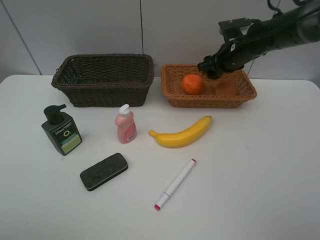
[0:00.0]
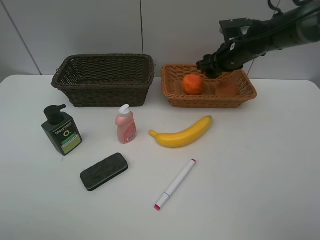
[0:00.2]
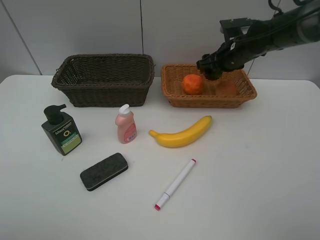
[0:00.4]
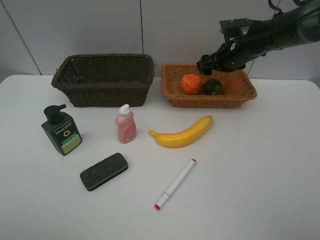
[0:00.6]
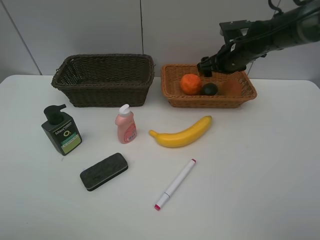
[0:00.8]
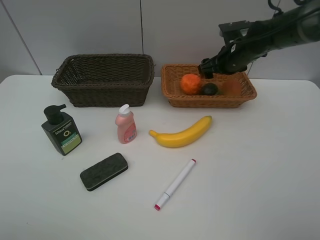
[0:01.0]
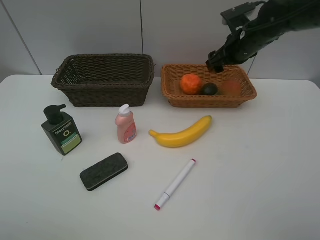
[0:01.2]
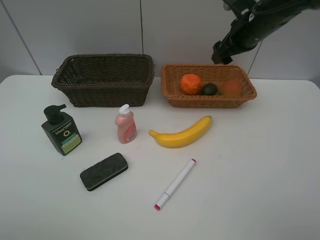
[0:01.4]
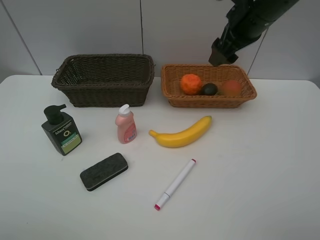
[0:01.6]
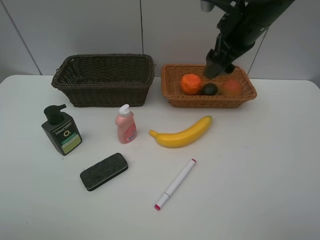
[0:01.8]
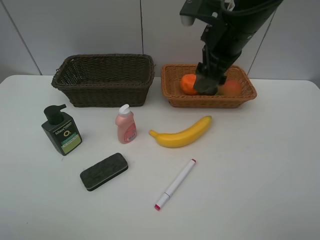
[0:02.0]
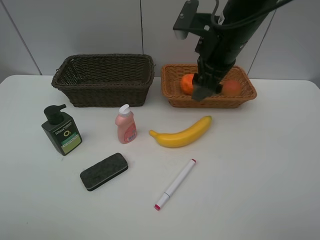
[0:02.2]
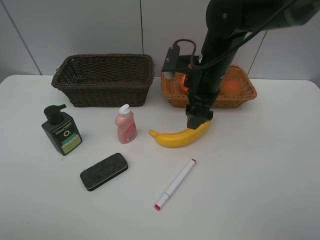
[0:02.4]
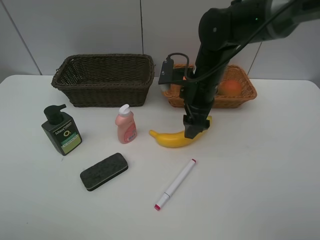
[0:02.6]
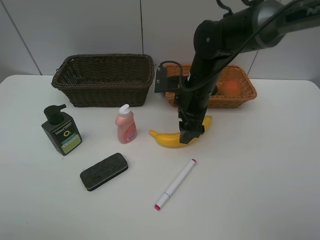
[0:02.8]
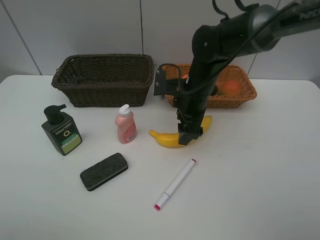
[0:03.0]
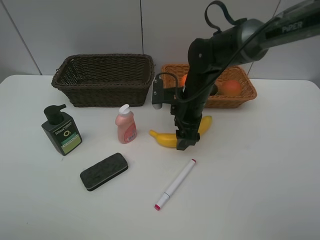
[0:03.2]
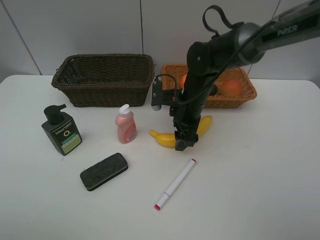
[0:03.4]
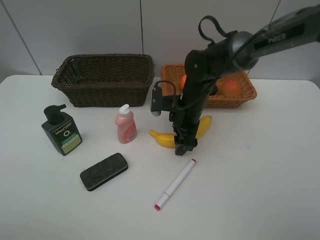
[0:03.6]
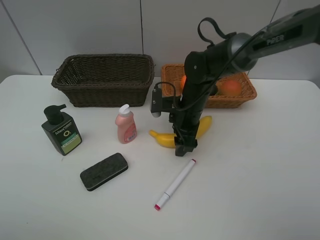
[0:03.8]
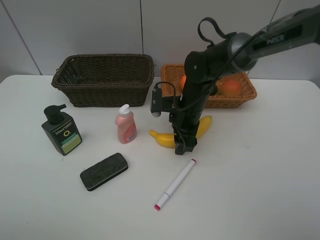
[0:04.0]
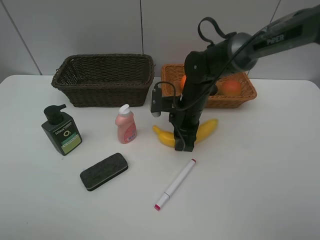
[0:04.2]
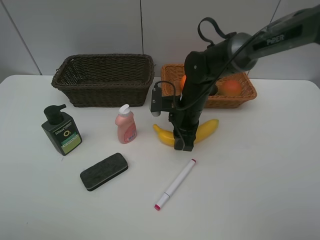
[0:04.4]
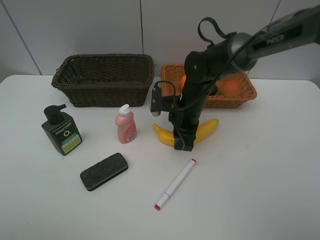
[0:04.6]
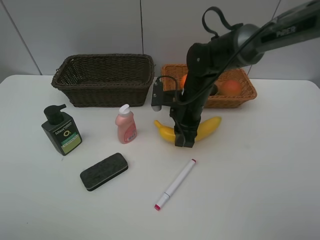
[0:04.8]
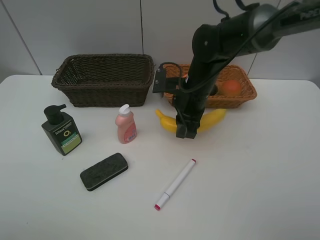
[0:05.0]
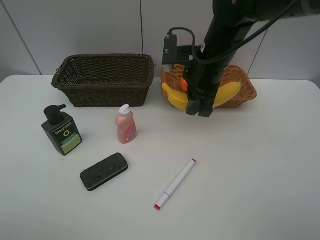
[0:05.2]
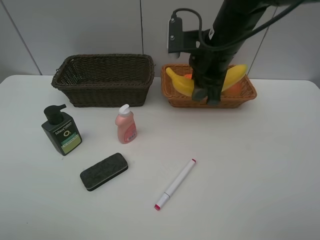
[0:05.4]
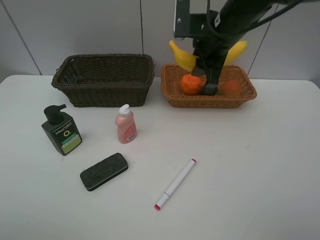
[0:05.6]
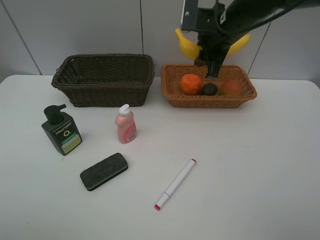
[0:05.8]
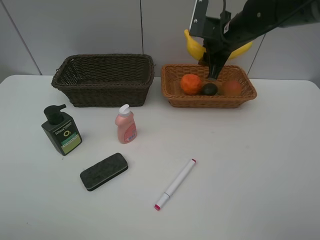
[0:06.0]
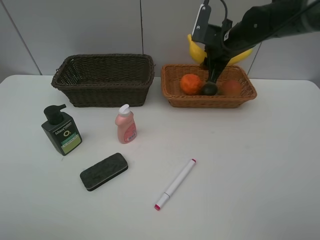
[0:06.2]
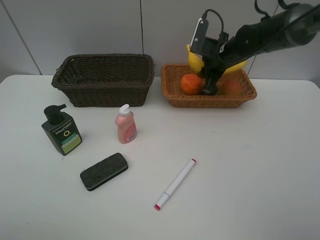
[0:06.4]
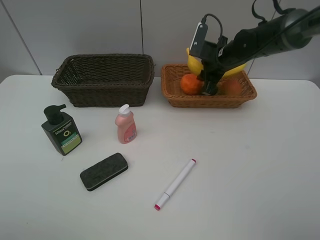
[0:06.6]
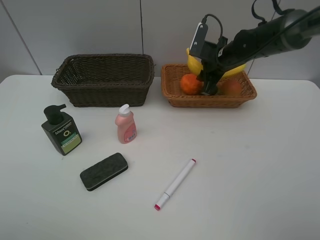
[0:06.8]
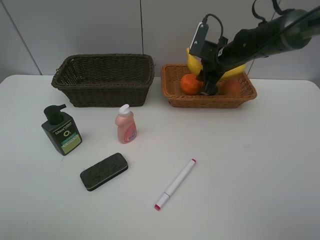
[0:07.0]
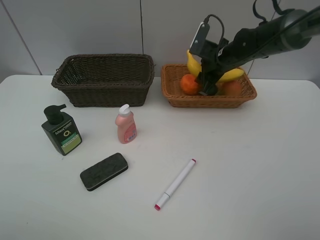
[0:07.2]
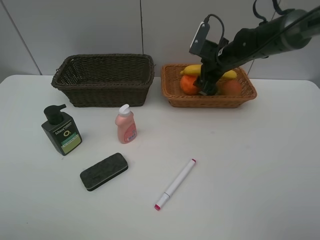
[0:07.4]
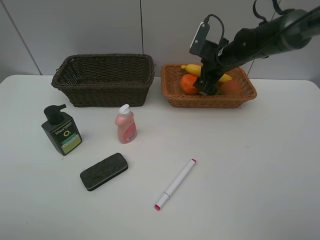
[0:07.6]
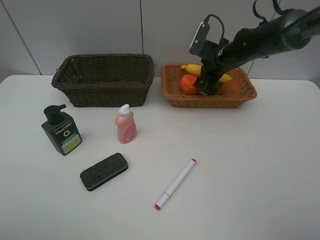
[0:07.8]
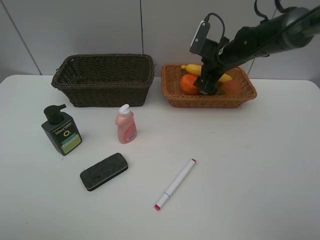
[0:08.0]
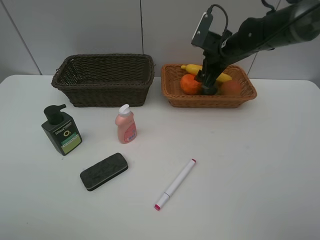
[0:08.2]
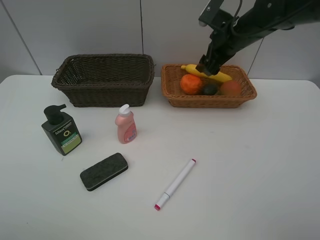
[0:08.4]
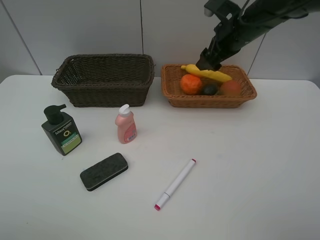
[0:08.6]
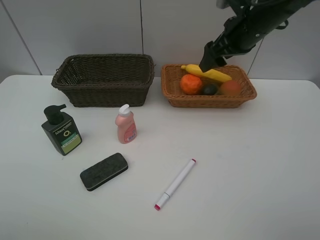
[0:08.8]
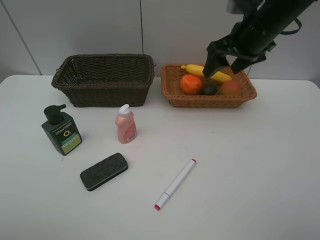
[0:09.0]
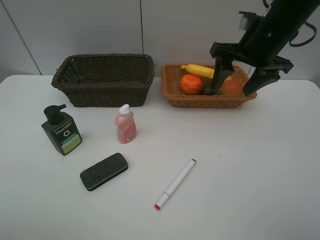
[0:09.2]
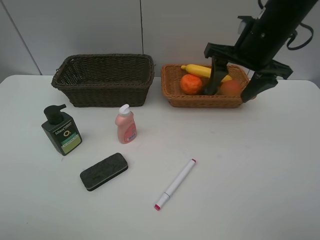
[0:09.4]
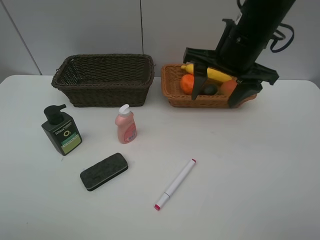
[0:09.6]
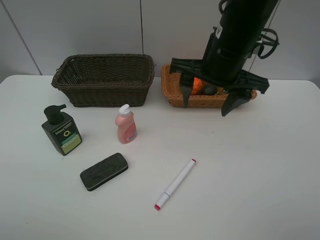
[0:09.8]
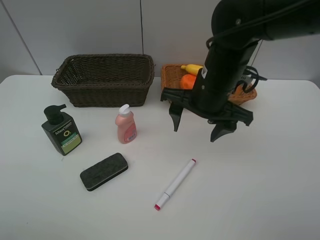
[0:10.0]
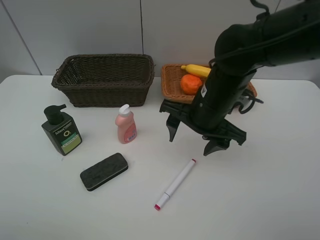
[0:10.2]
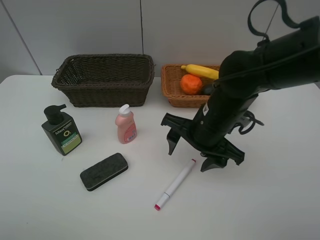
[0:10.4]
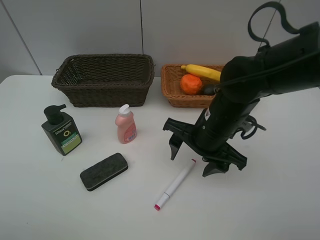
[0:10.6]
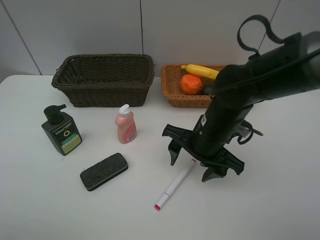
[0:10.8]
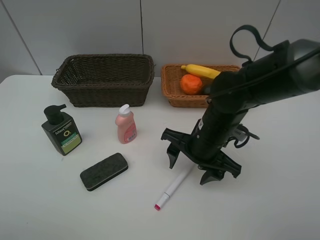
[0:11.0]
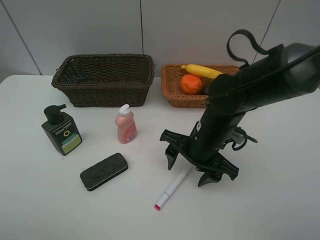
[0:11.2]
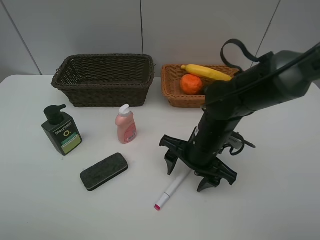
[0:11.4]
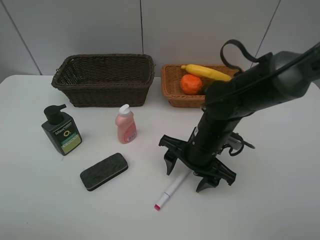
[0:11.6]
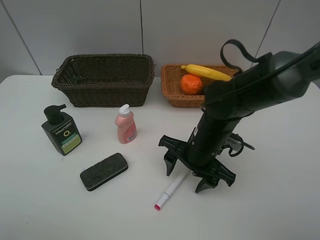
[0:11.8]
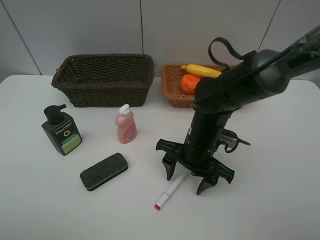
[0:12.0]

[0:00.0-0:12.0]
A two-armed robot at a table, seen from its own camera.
Task of the whole recording: Place multiple objects separately in different baskets.
Step, 0:01.2 to 0:04.8: Pick up banana with right gripper.
Step, 0:05.0 to 0:08.0: Place the banana in the light basket with right gripper.
0:00.0 to 0:01.6: The right gripper goes some 15 cm upward and backward.
0:01.6 to 0:03.0: The right gripper goes approximately 15 cm downward and to the left.
0:03.0 to 0:04.4: The right gripper closes.
0:04.4 to 0:06.0: The right gripper is displaced upward, to the right and forward by approximately 15 cm.
0:06.0 to 0:07.6: The right gripper shifts some 5 cm downward, and opens up.
0:07.6 to 0:09.0: The right gripper heads upward and backward, covering roughly 15 cm.
0:09.0 to 0:10.4: The right gripper heads downward, backward and to the left, covering some 20 cm.
0:10.4 to 0:12.0: The right gripper goes about 5 cm downward.

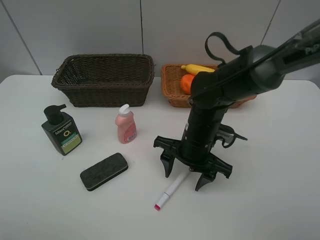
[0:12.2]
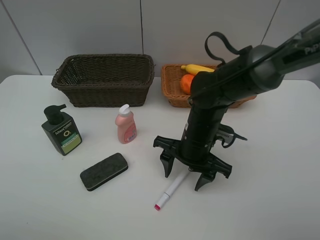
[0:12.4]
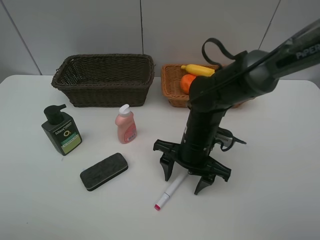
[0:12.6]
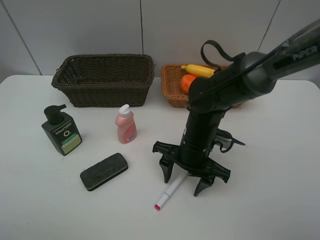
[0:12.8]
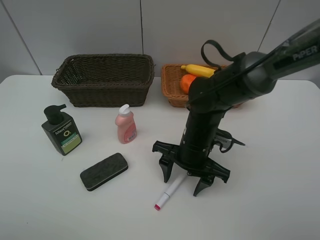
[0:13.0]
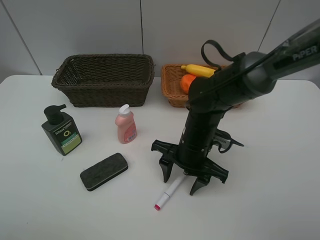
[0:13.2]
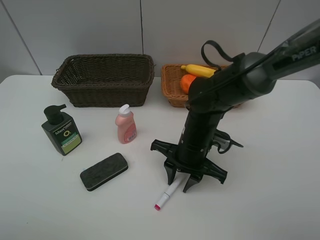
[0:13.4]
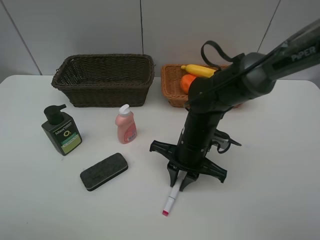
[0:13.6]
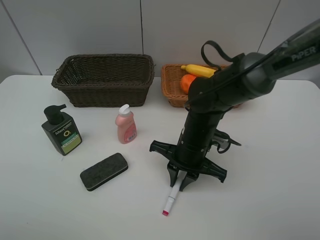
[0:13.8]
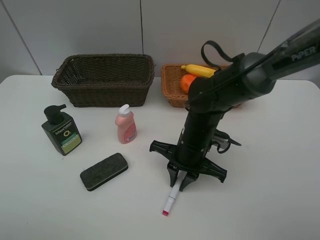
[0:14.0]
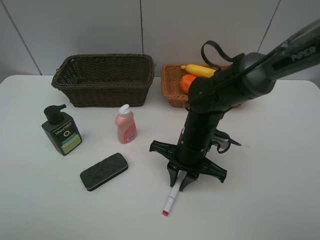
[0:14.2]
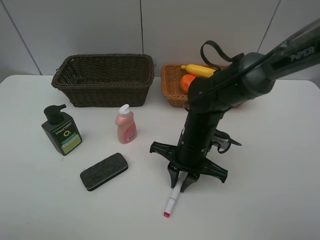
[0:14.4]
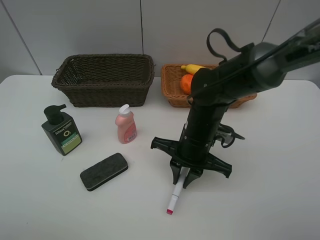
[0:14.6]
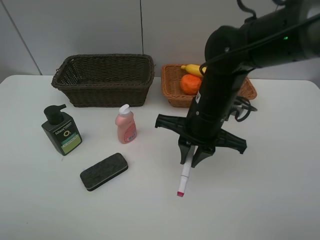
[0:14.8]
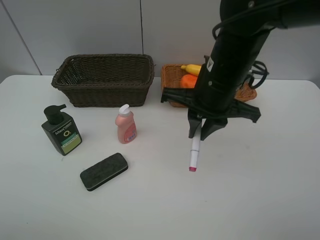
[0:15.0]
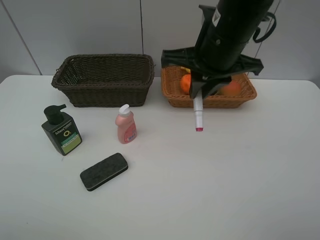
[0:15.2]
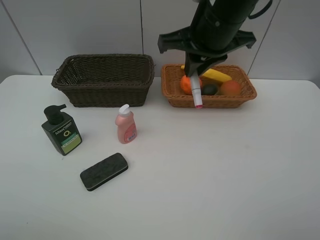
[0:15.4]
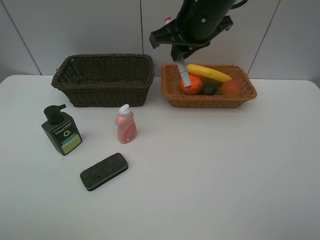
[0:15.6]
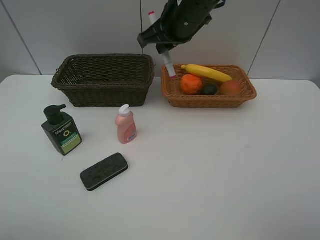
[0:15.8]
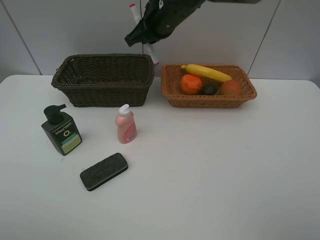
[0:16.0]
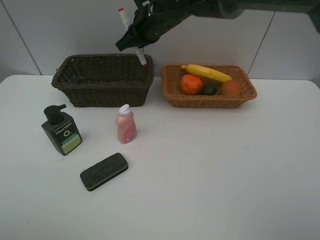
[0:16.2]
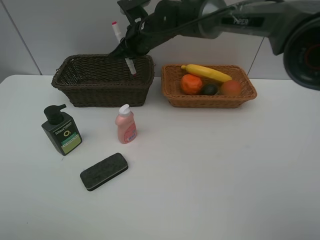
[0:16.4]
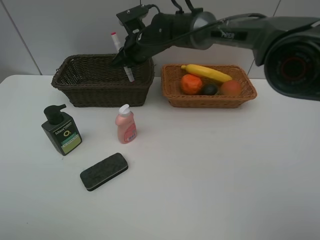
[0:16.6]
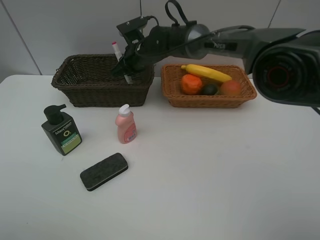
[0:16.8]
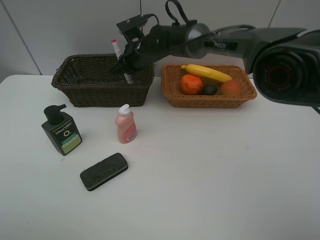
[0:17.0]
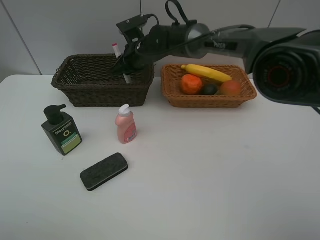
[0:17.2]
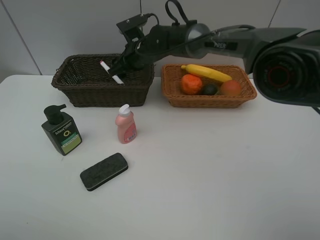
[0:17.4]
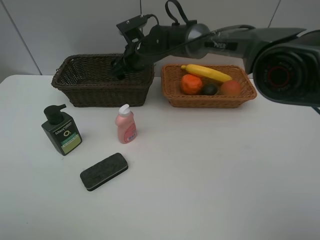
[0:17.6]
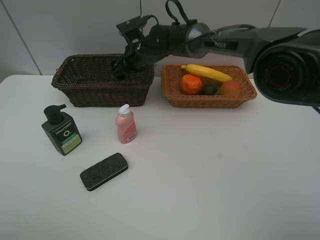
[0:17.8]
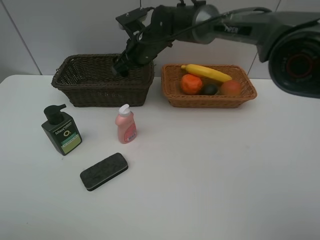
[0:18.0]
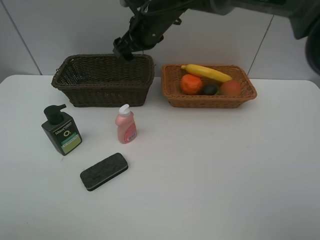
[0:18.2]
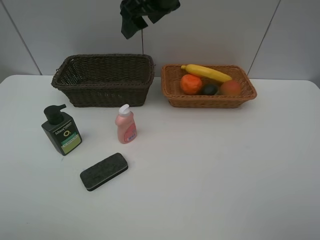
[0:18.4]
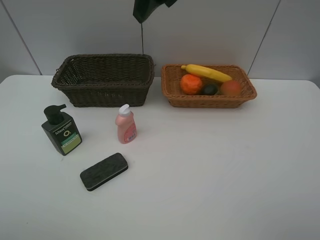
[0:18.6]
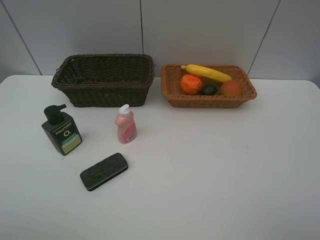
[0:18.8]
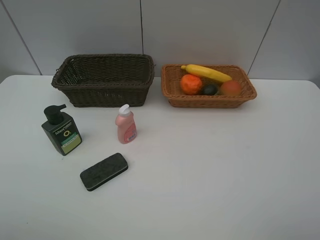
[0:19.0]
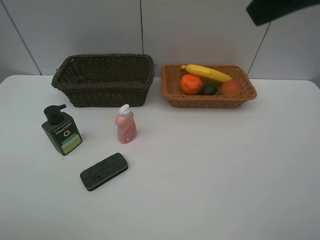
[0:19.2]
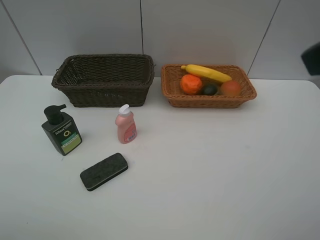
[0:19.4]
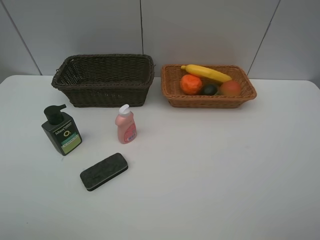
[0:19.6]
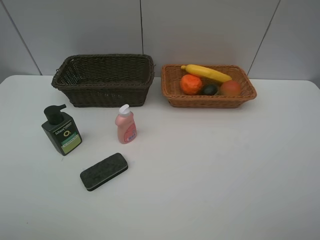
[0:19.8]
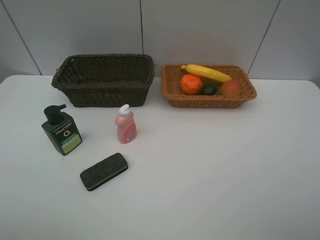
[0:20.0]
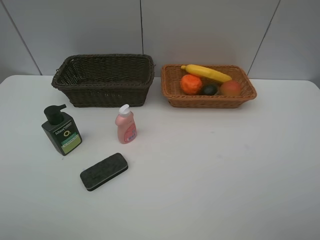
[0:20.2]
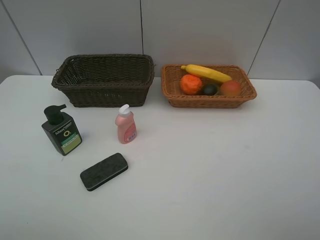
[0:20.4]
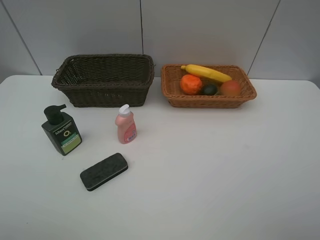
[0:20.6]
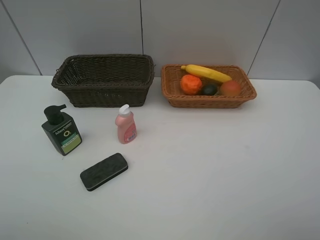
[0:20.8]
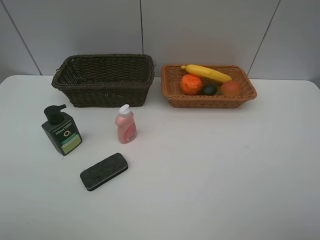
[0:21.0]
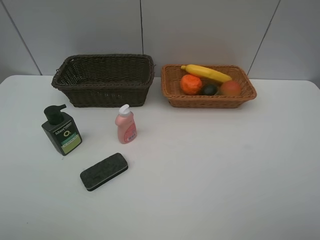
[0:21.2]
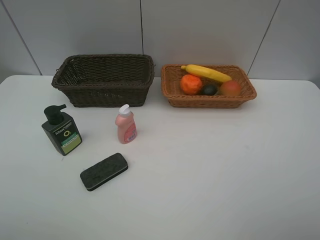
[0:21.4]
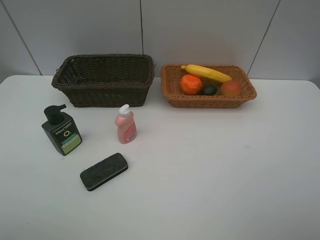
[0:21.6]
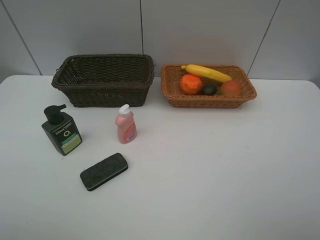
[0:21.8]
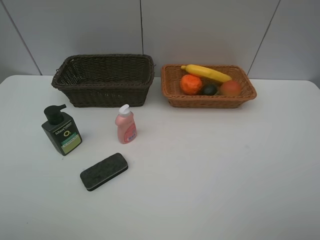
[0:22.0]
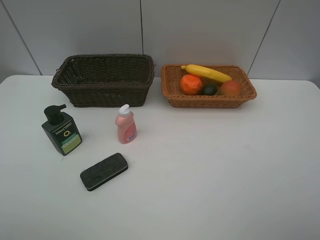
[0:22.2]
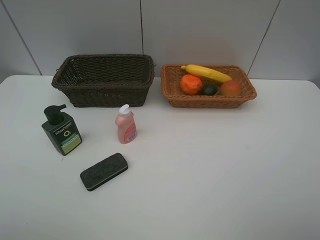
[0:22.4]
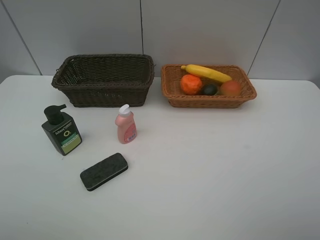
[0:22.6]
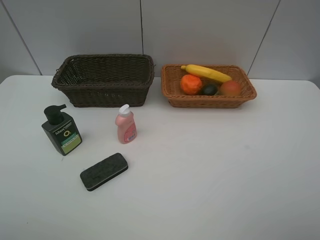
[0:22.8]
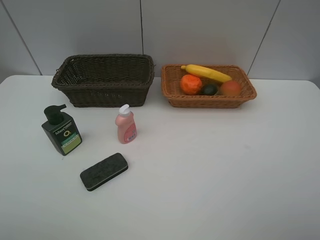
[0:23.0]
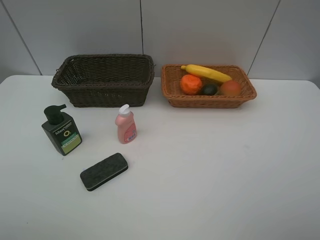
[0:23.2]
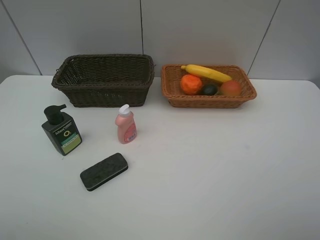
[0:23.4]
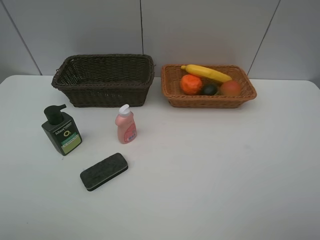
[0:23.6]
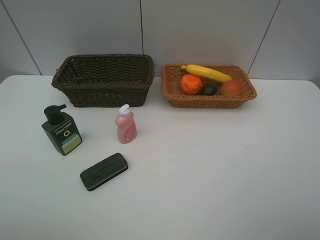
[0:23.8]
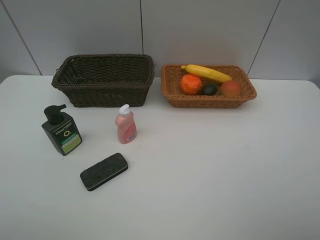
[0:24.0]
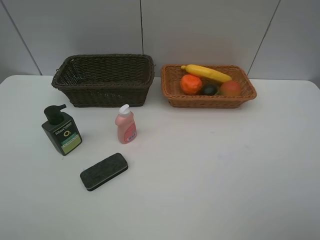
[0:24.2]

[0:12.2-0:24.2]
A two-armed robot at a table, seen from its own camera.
Task of the whole recording: Place multiple objects separately in different baskets.
Step, 0:12.2 to 0:14.6: Pick up the red marker with right gripper.
Step, 0:14.8 to 0:17.4: Place the red marker in the dark basket with right gripper.
0:12.2 to 0:13.8: The right gripper closes up.
0:13.8 to 0:15.2: The right gripper travels upward by approximately 20 cm.
0:15.2 to 0:16.6: The right gripper travels forward, to the left and downward by roughly 25 cm.
0:16.6 to 0:18.2: The right gripper moves upward, some 10 cm, and opens.
0:18.2 to 0:19.8: The right gripper shifts roughly 50 cm backward and to the right.
